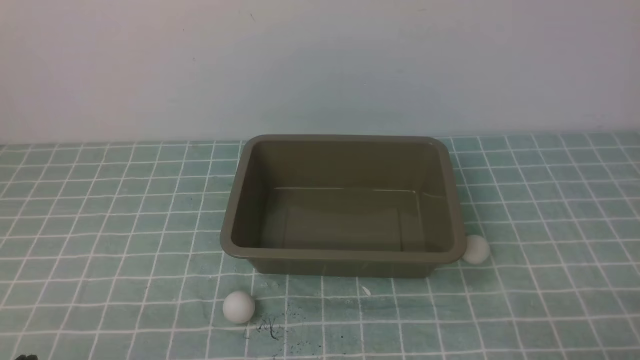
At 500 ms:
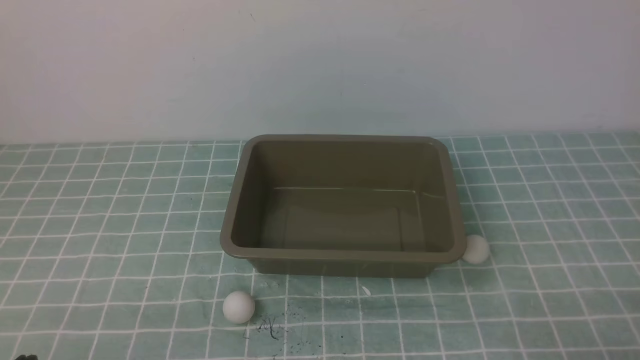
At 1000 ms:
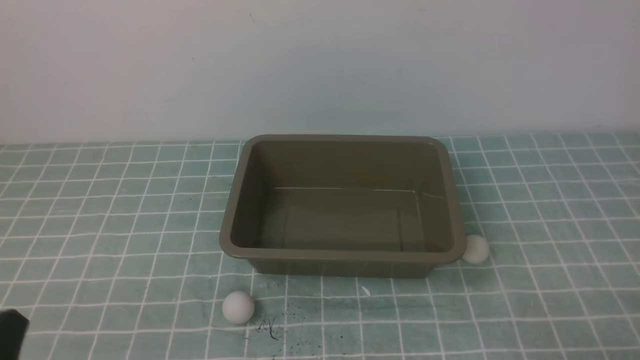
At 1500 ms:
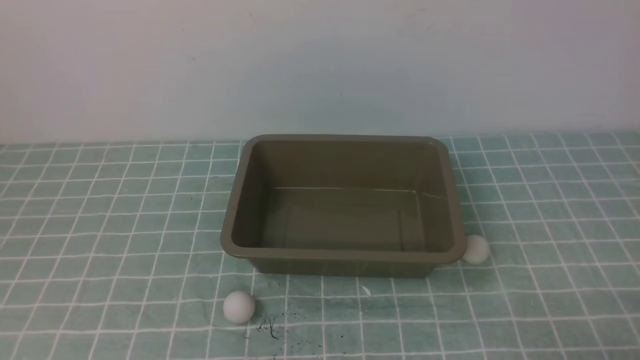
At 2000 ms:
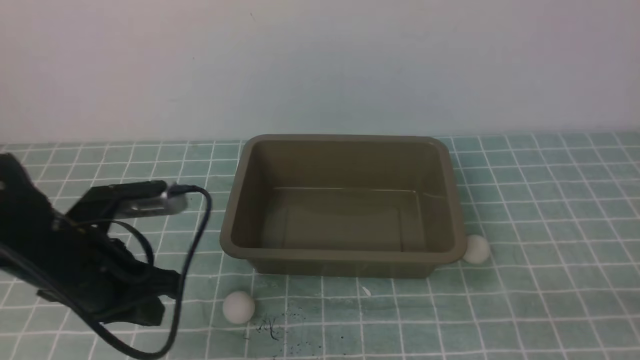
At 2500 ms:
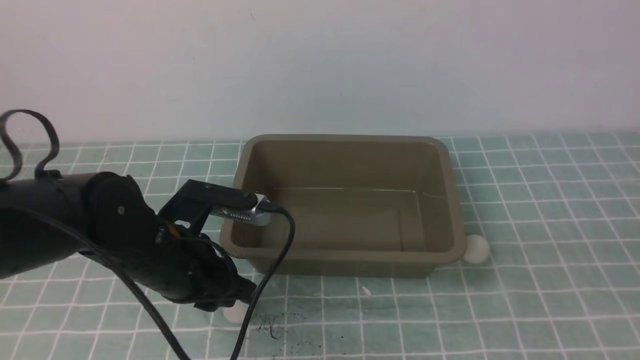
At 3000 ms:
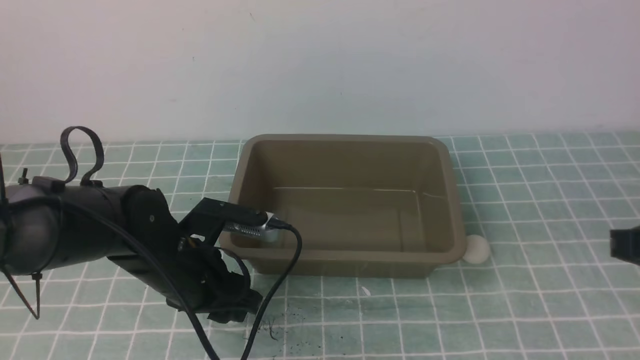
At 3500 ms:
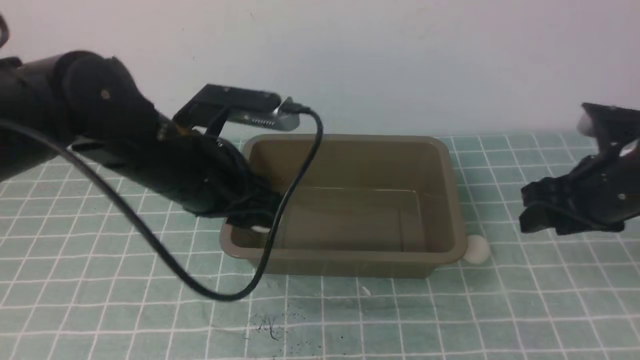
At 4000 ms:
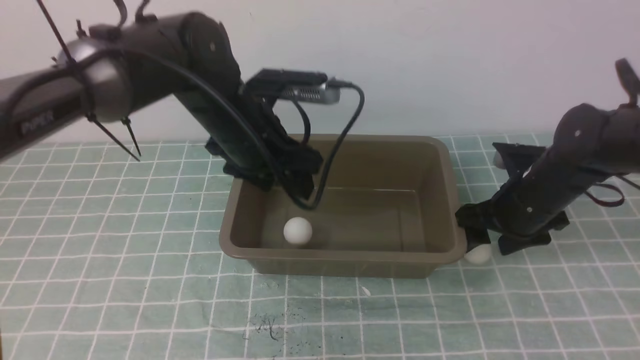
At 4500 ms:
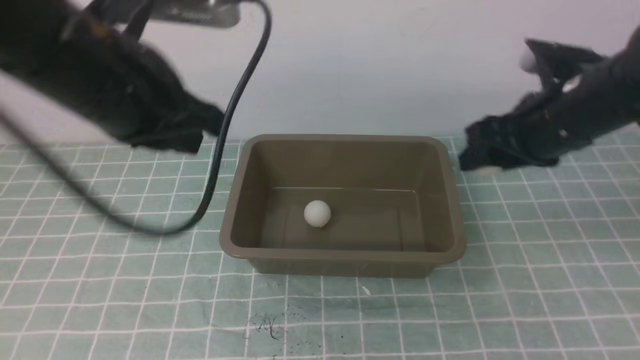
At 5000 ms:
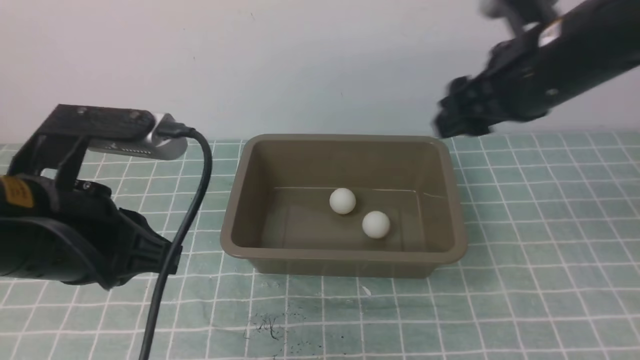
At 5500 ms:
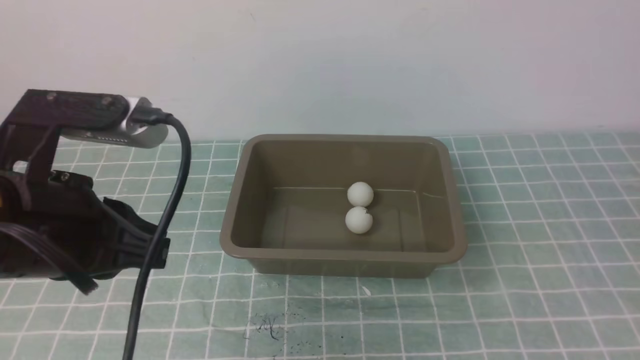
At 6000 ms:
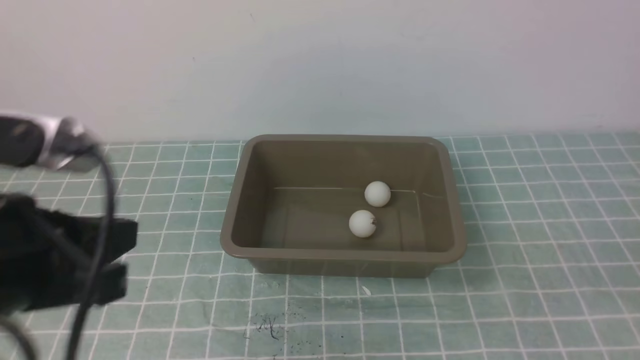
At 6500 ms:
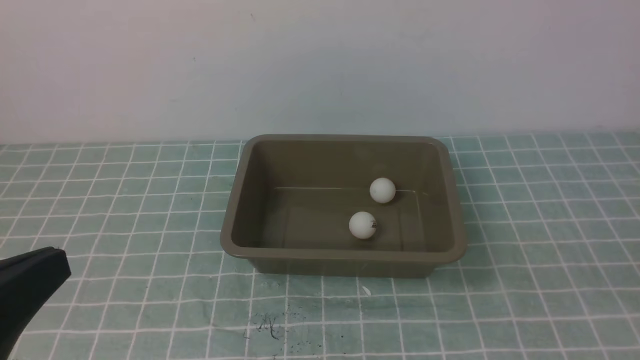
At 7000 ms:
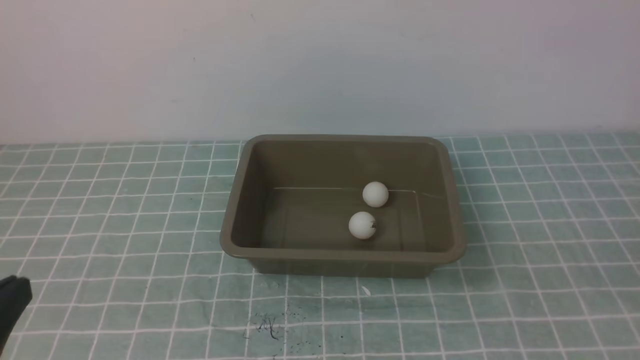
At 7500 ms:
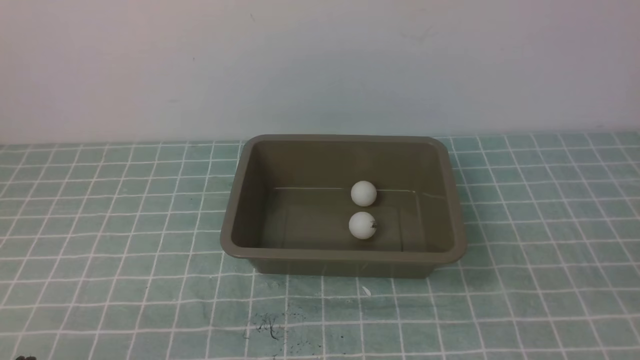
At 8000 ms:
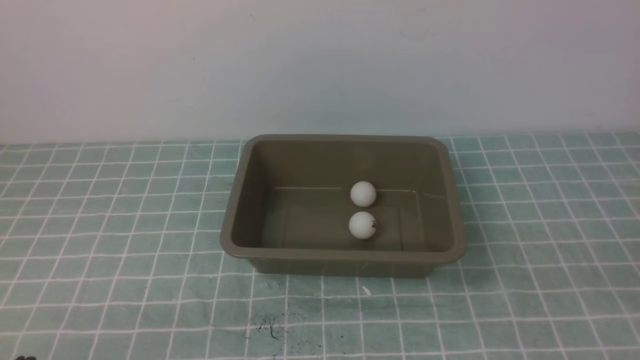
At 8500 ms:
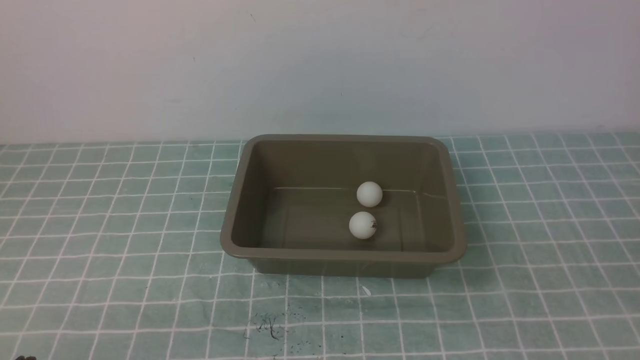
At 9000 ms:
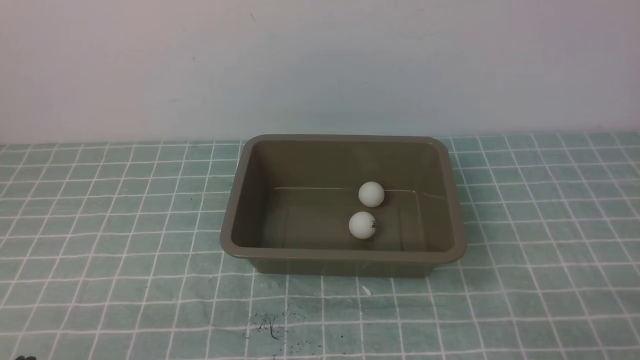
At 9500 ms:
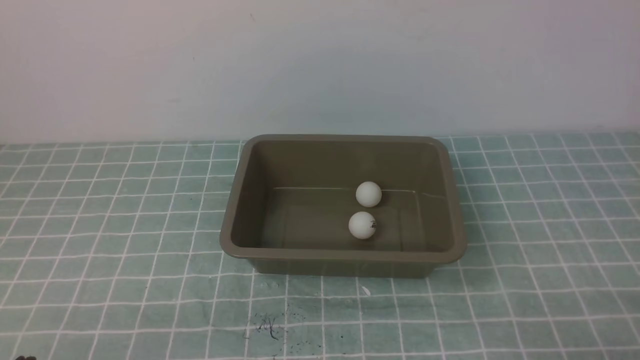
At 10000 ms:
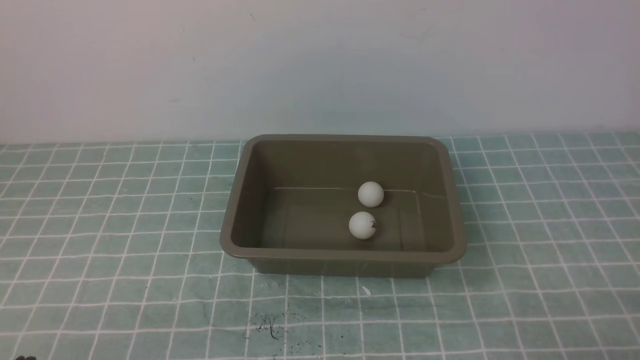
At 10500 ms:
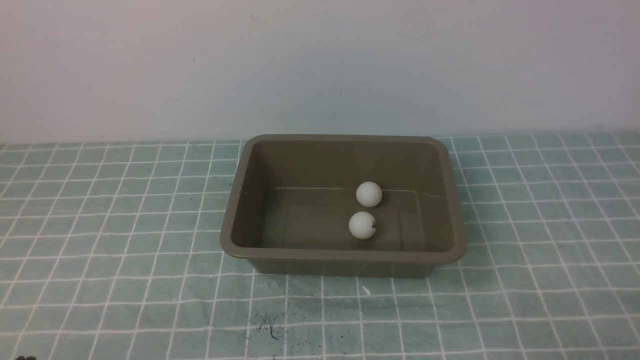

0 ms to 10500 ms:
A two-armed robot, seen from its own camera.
Step, 0 ms to 3000 ms: use the left arm to clamp the table tennis ball closest to it.
Step, 4500 ms to 5000 ms: use the right arm to put the table tennis ball into the box.
0 ms to 2000 ms: The left gripper shifts roughly 20 cm forward.
2000 ms to 4000 ms: The right gripper shifts about 30 cm forward, and opens up. Meanwhile the left gripper heads forward and to the right, covering roughly 15 cm, and opens its fingers.
4000 ms to 6500 ms: The left gripper moves backward and to the left, some 35 cm, and closes its fingers. The right gripper shifts about 35 cm backward, and closes up.
6500 ms to 8500 ms: The left gripper shifts approximately 15 cm downward.
